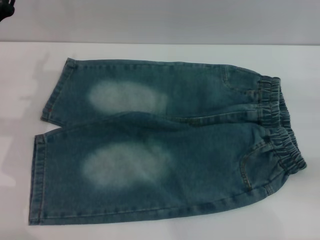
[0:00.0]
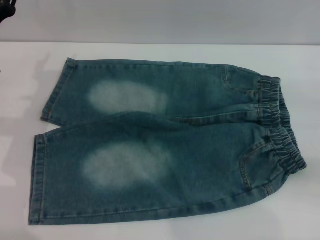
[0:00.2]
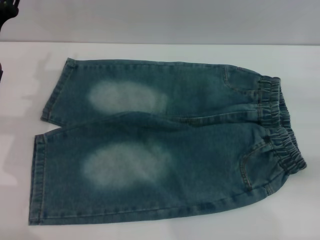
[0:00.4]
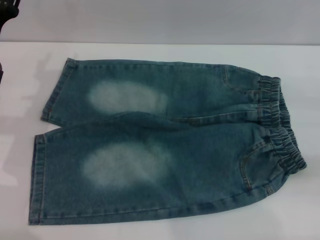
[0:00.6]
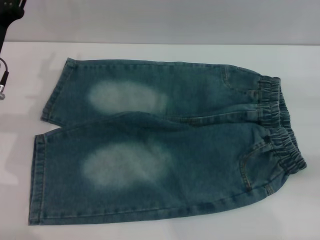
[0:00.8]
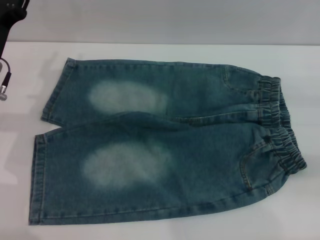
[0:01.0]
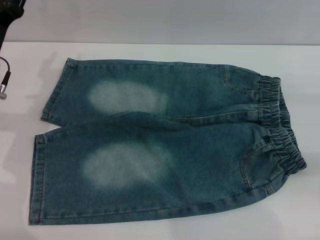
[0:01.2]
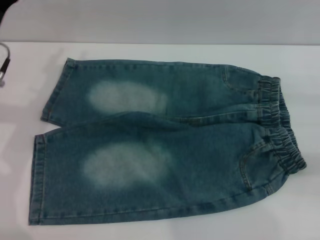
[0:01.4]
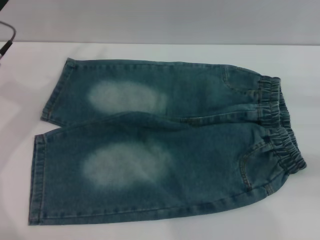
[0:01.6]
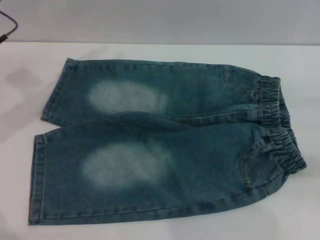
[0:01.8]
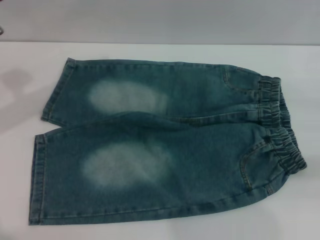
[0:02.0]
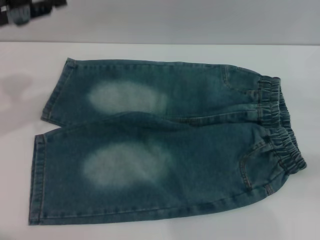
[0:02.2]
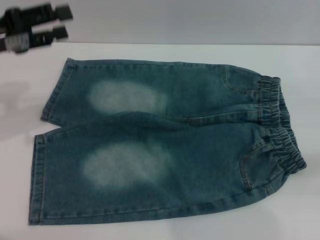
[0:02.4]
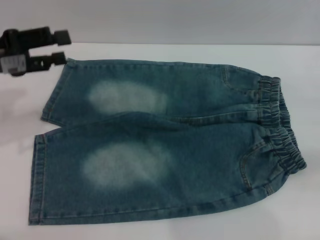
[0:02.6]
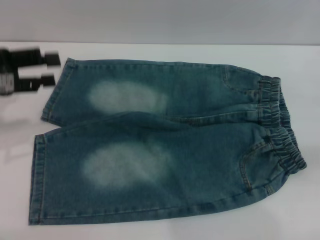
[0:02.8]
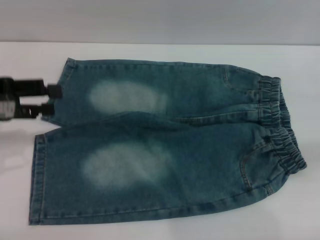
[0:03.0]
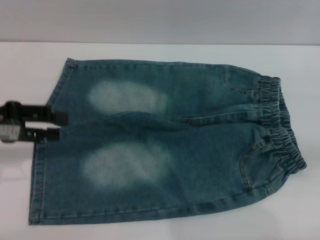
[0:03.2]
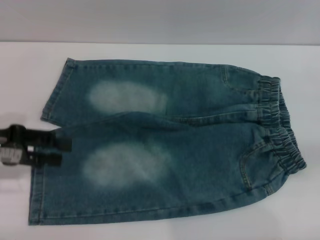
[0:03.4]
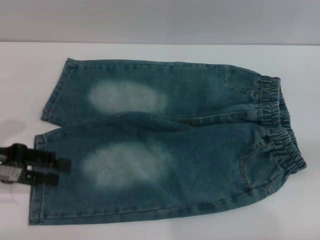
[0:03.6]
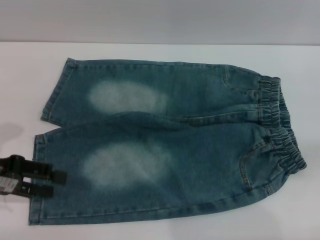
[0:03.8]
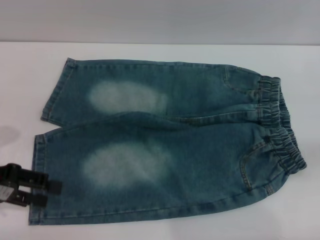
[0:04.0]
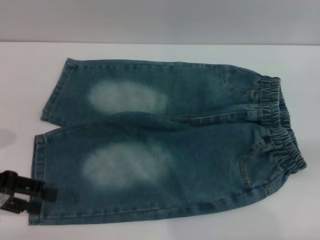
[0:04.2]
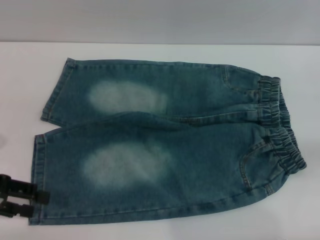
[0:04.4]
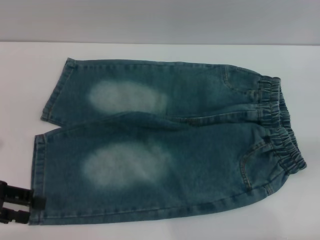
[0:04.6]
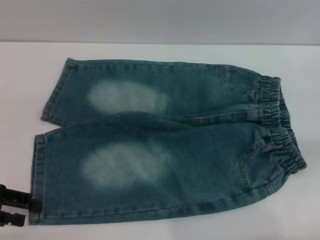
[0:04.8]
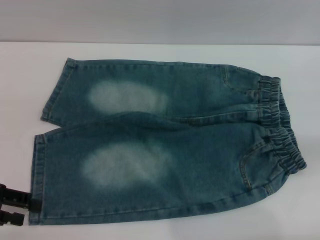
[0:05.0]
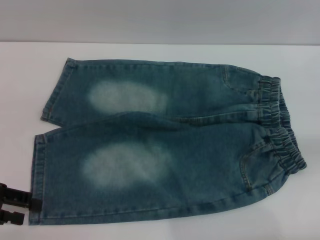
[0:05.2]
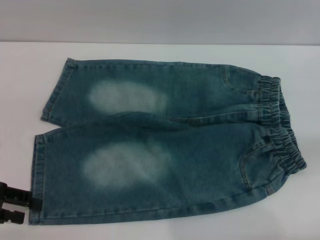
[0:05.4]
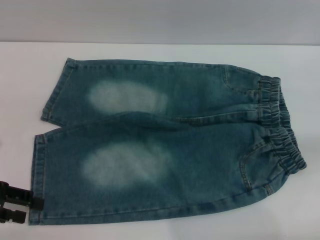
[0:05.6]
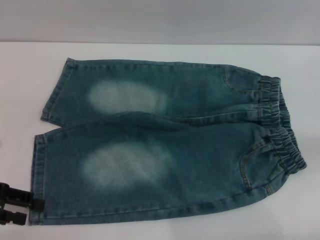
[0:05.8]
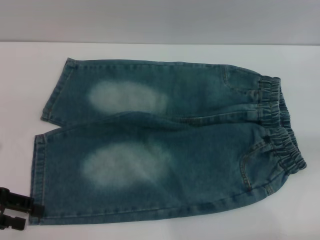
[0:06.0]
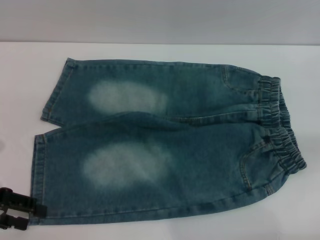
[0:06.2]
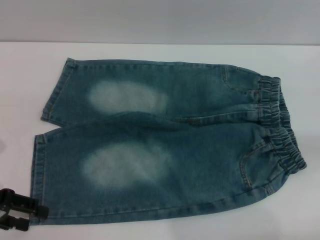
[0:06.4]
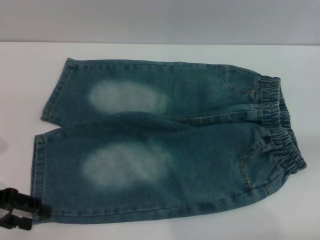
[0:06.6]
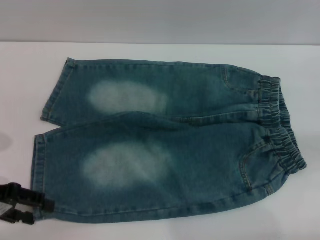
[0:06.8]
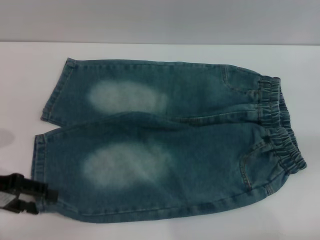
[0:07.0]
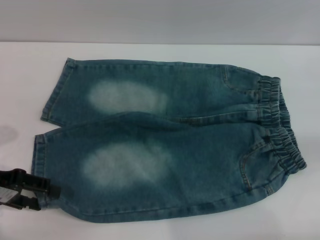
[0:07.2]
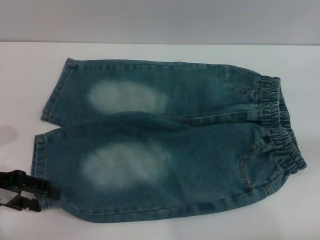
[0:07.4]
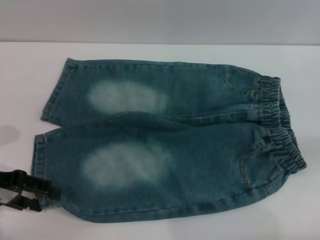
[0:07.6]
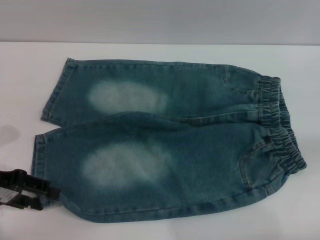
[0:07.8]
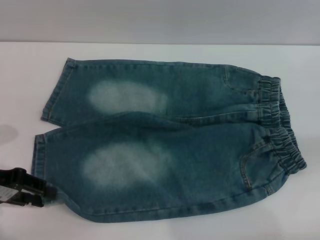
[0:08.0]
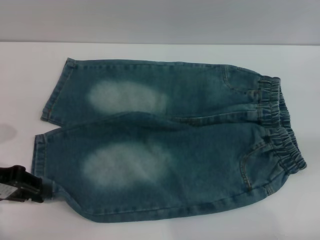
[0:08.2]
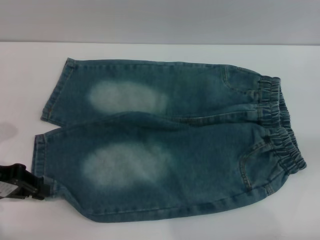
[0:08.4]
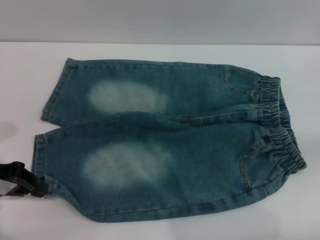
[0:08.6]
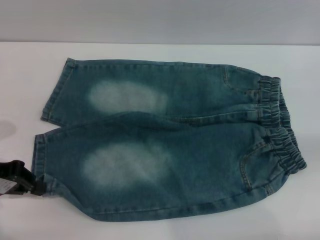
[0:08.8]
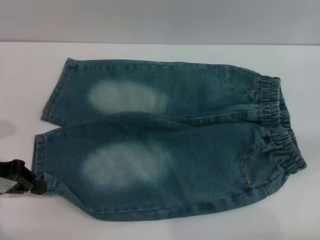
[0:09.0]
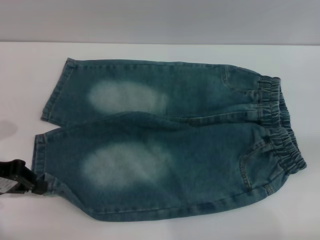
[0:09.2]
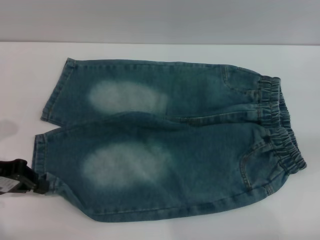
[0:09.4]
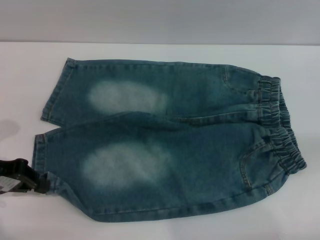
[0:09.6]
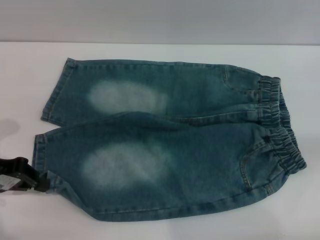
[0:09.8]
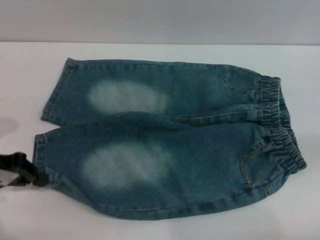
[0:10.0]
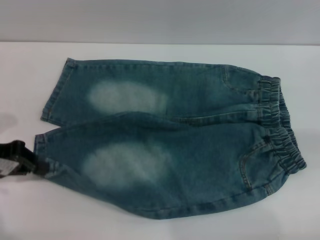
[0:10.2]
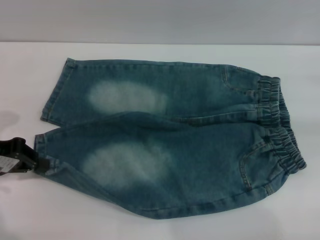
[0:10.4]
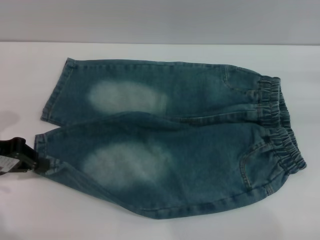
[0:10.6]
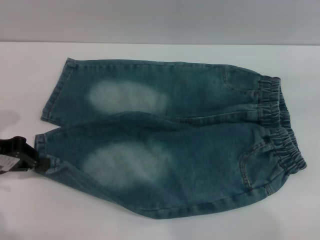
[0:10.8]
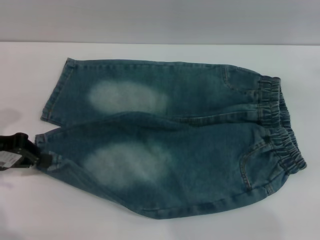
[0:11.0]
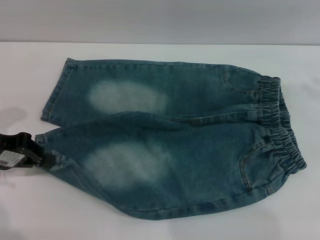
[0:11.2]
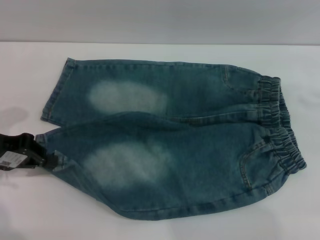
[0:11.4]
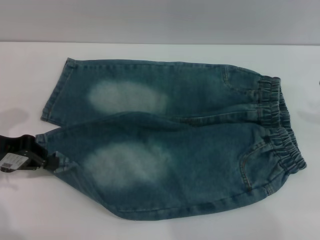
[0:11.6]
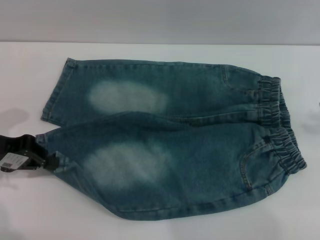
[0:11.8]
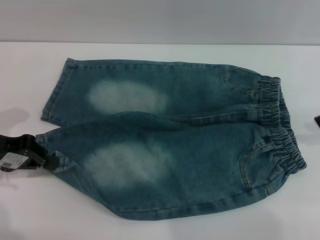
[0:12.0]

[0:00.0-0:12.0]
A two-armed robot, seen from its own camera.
0:01.6 to 0:03.0: The left gripper goes approximately 10 cm backward and to the left.
0:03.0 to 0:04.4: The left gripper travels backward and downward by roughly 10 cm.
0:04.4 to 0:07.6: The grippers stay close to where they were, moving slightly.
0:07.6 to 0:09.0: The left gripper closes its fingers.
0:10.4 to 0:12.0: The right gripper is displaced to the left and upward by roughly 15 cm.

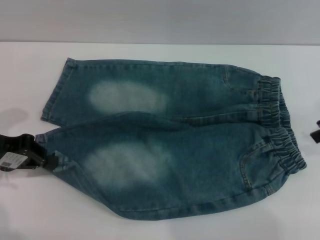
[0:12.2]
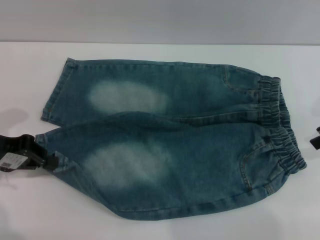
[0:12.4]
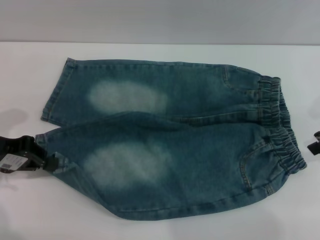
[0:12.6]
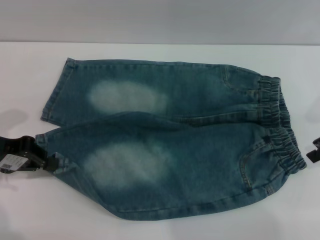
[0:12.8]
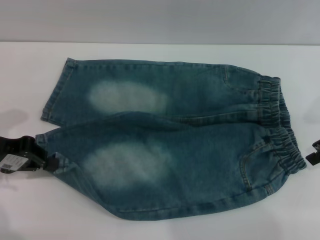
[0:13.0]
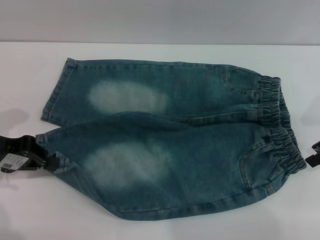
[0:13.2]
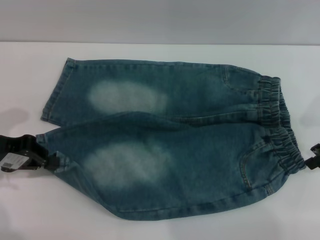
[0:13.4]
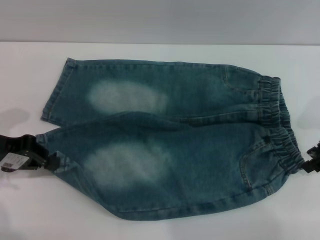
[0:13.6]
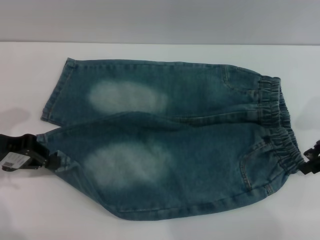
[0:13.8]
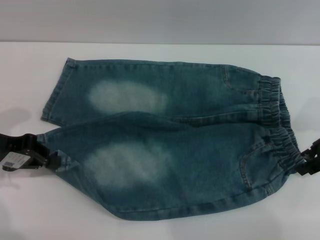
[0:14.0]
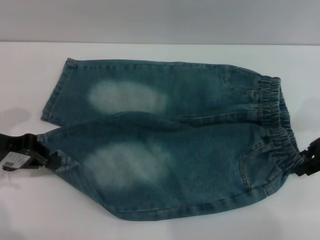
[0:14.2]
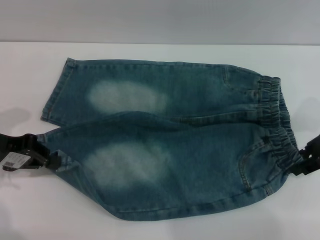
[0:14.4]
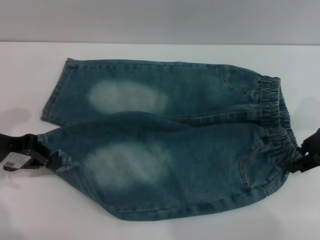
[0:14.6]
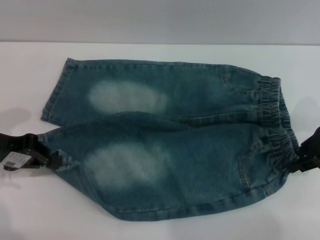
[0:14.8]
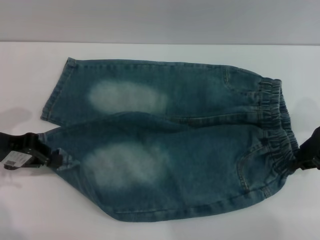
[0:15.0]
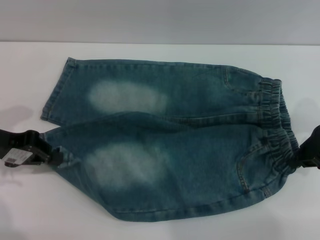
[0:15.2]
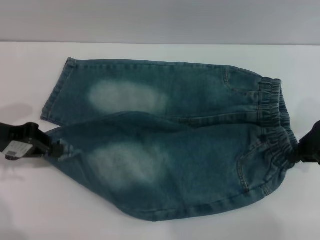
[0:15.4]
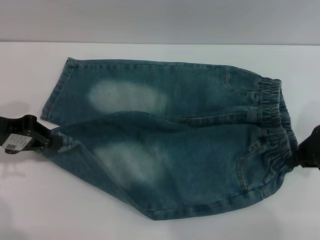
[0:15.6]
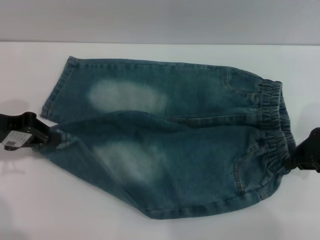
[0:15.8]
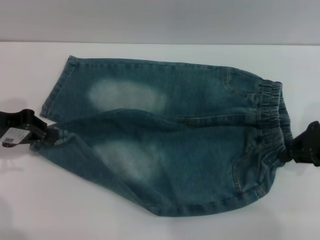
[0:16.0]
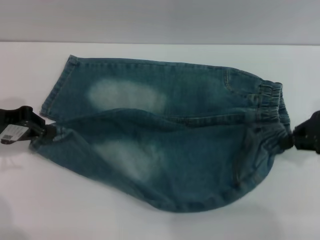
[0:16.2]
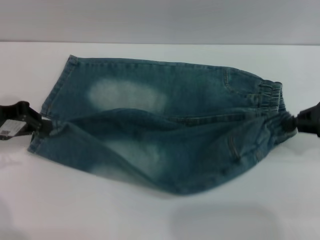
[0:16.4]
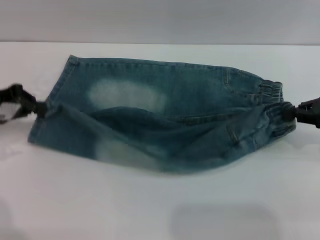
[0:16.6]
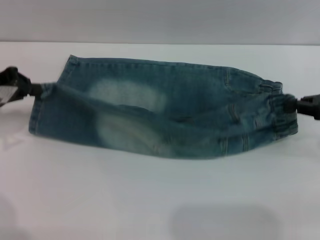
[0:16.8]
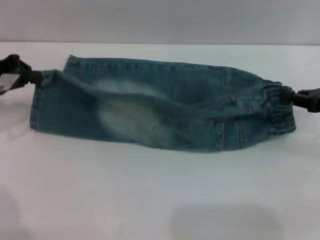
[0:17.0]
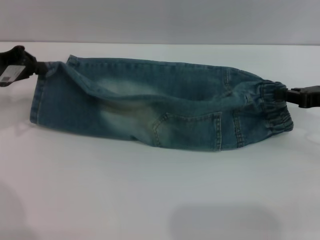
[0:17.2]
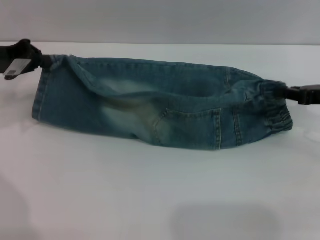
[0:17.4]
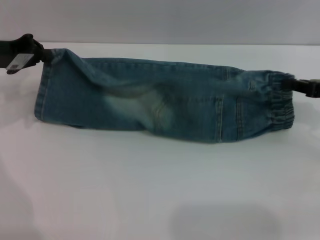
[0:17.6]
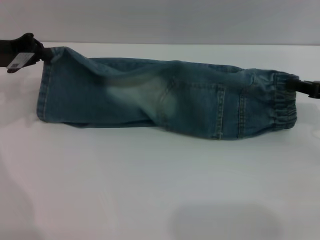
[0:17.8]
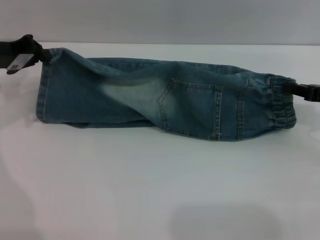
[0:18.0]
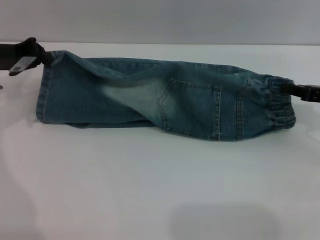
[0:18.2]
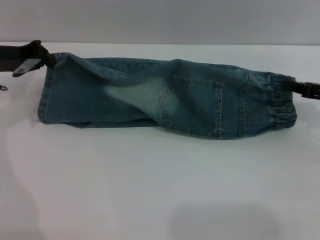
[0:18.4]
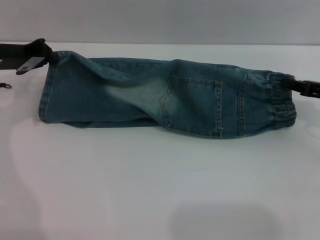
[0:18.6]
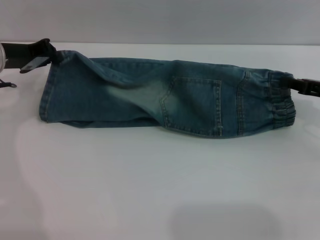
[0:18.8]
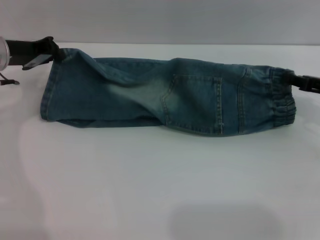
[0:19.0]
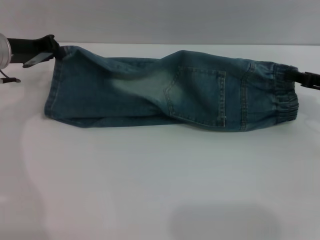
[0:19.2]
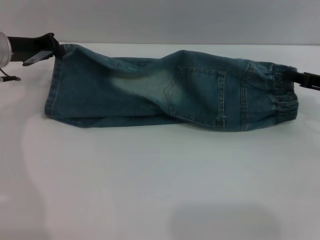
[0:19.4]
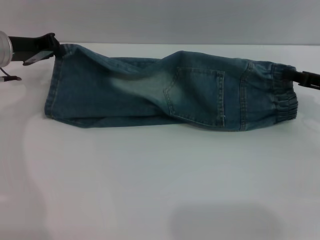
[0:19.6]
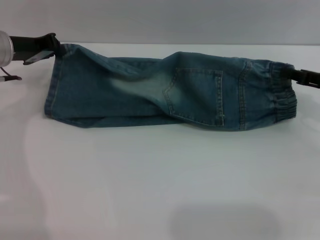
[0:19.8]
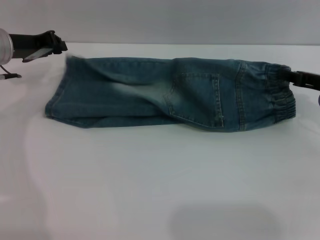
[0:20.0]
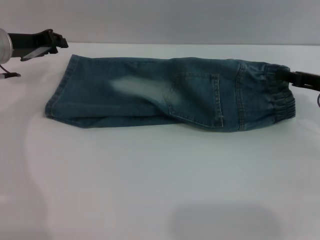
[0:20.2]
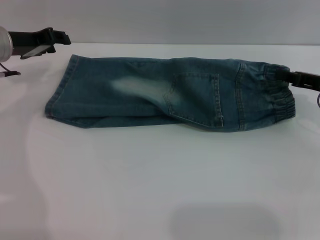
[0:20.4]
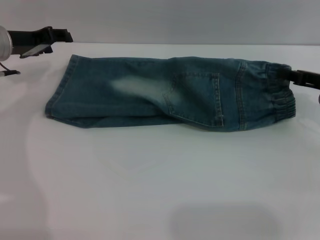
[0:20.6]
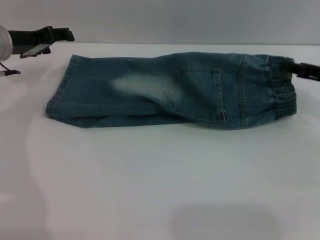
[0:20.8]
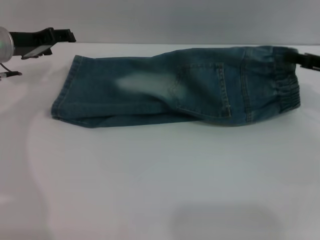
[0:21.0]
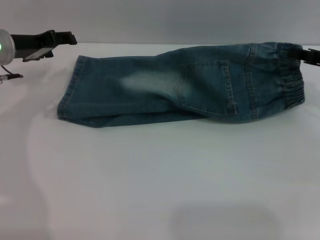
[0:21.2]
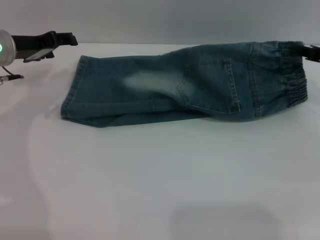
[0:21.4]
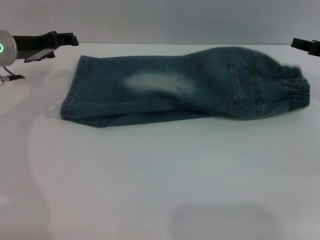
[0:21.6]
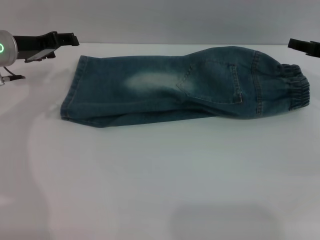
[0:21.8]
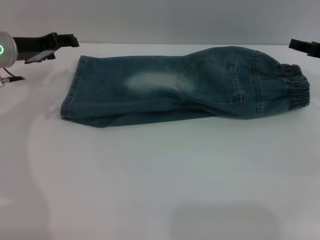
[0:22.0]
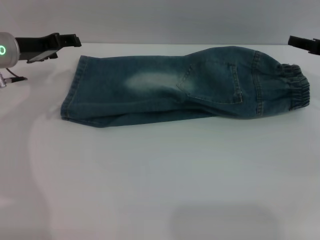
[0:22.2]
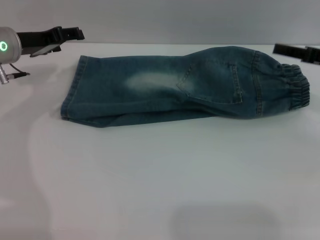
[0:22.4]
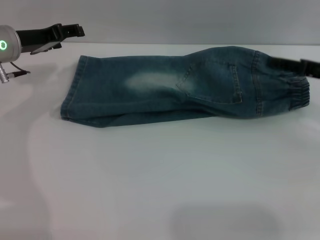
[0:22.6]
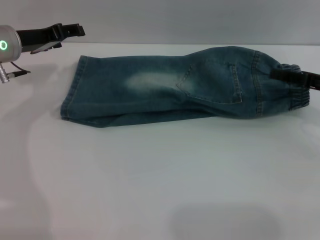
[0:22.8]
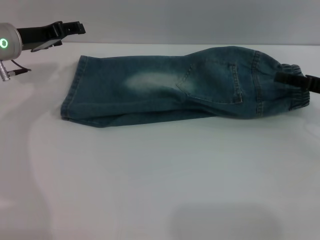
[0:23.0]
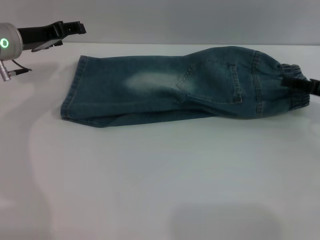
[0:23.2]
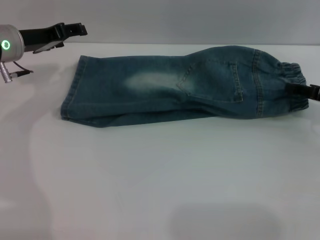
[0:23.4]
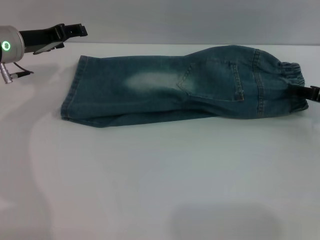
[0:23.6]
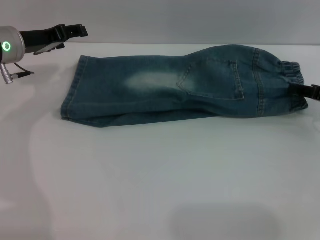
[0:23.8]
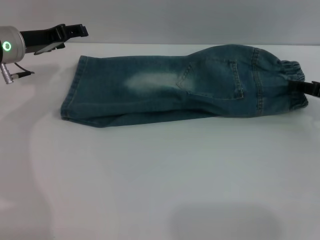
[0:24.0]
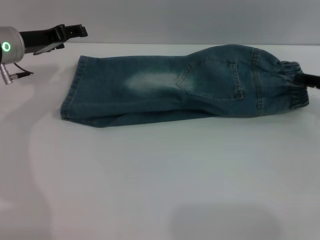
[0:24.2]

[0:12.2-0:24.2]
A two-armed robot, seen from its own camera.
Step, 0:12.2 to 0:23.4: Fold the bottom of the pants upward with both grippers.
0:12.2 to 0:13.8: The right gripper travels downward by roughly 5 cm.
0:13.8 to 0:15.2: The right gripper closes.
0:16.6 to 0:18.2: The left gripper is displaced forward by about 5 cm.
0:18.2 to 0:19.8: The grippers stay close to where they were, moving slightly.
0:19.8 to 0:21.2: The left gripper opens its fingers.
0:21.2 to 0:22.6: The right gripper opens its fingers.
